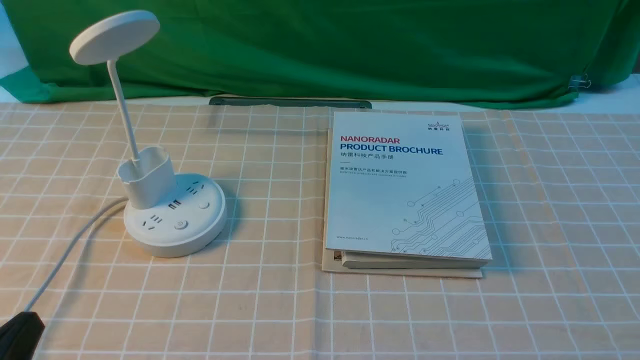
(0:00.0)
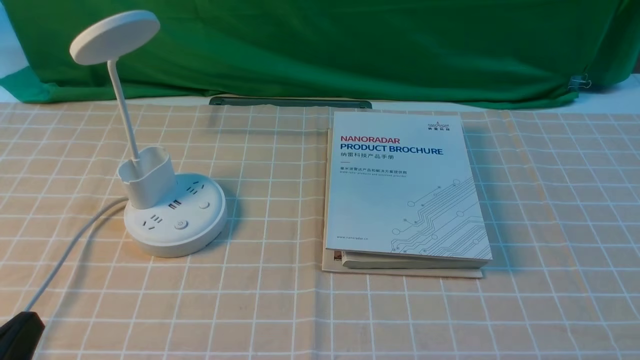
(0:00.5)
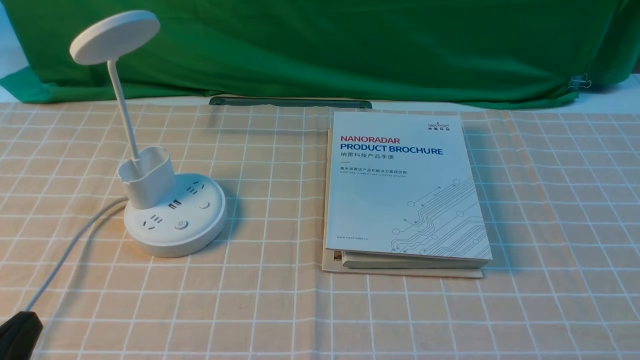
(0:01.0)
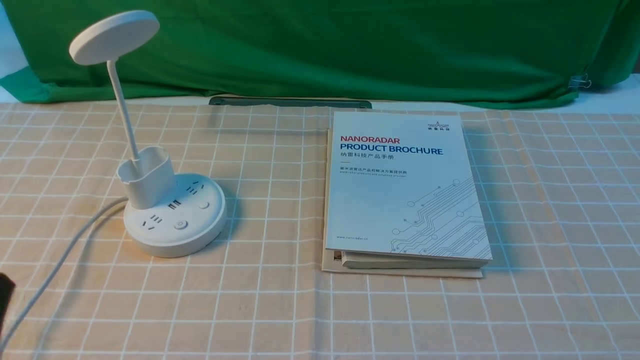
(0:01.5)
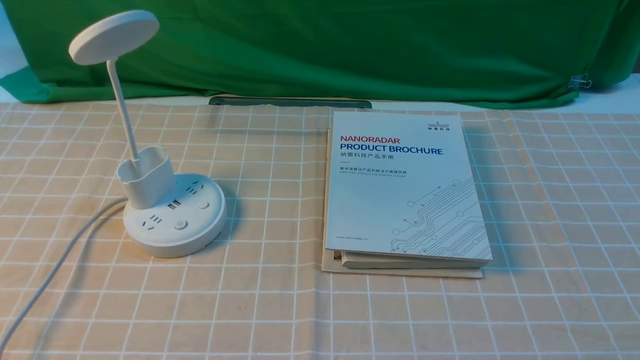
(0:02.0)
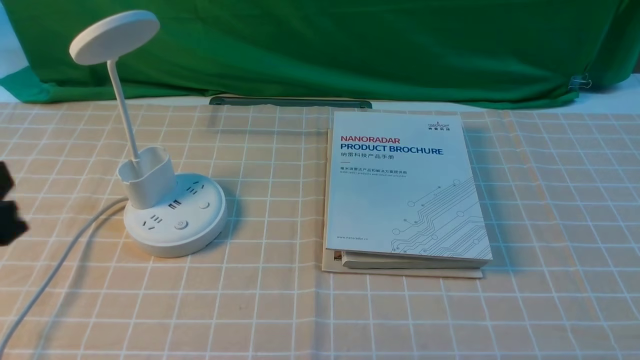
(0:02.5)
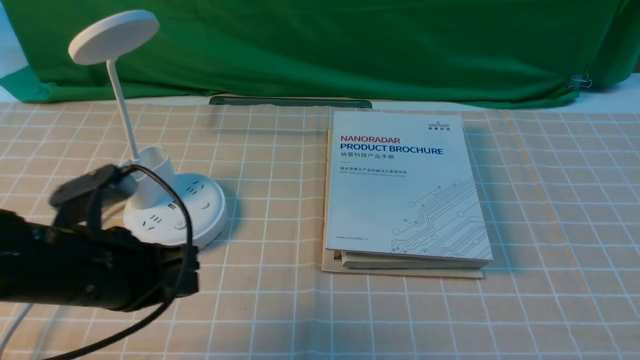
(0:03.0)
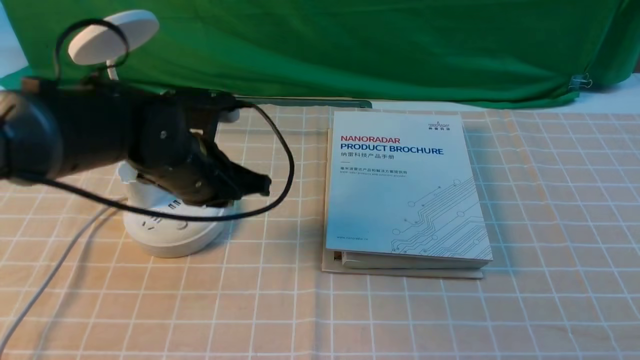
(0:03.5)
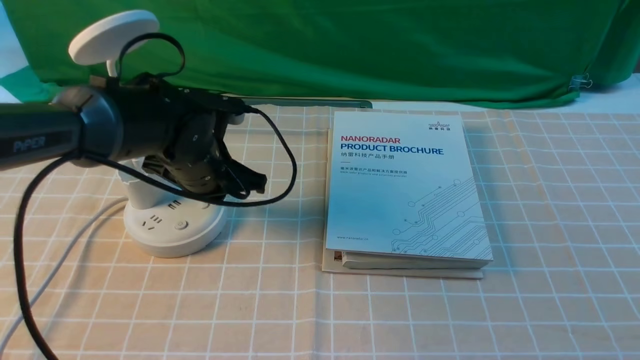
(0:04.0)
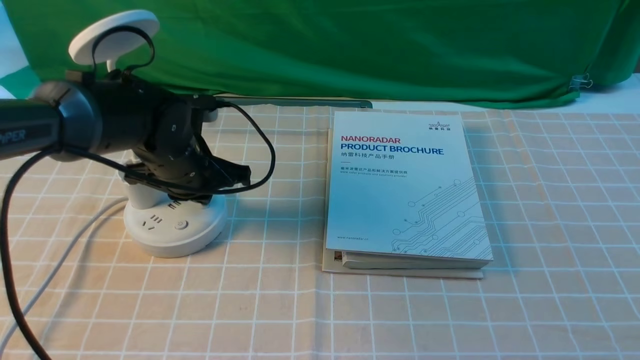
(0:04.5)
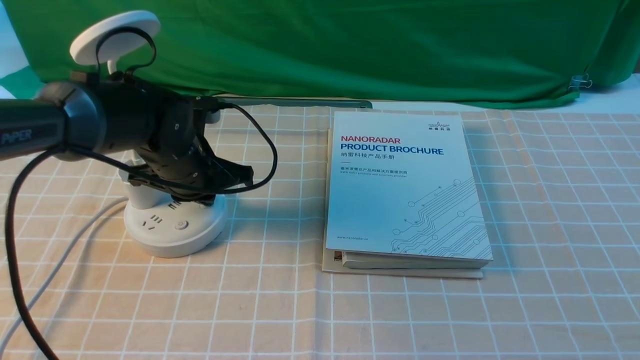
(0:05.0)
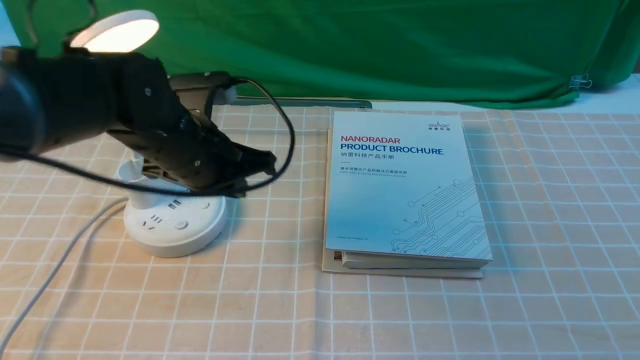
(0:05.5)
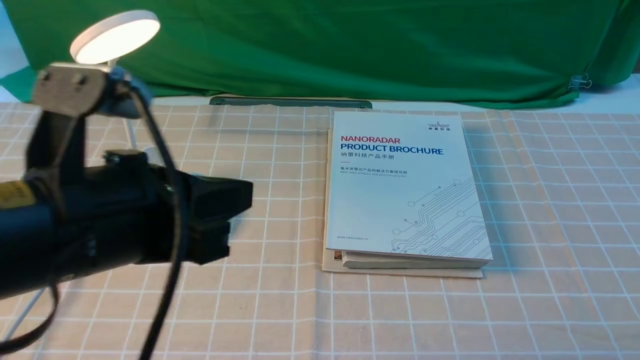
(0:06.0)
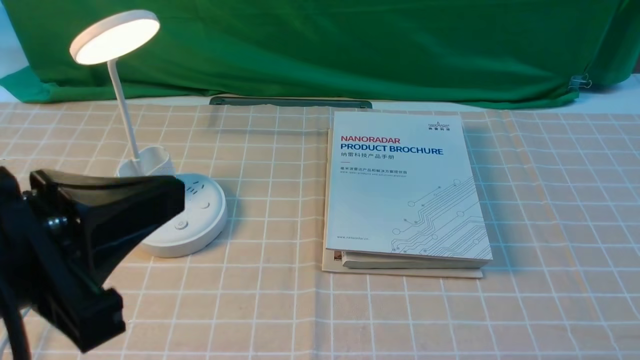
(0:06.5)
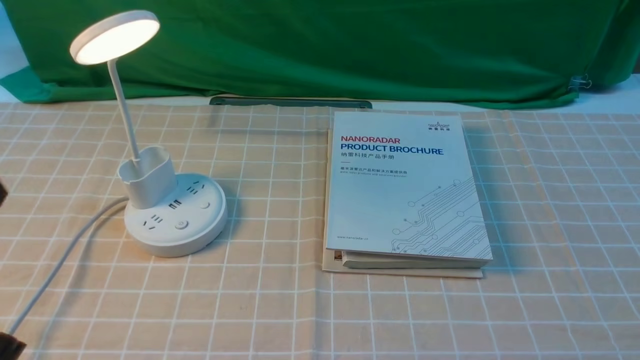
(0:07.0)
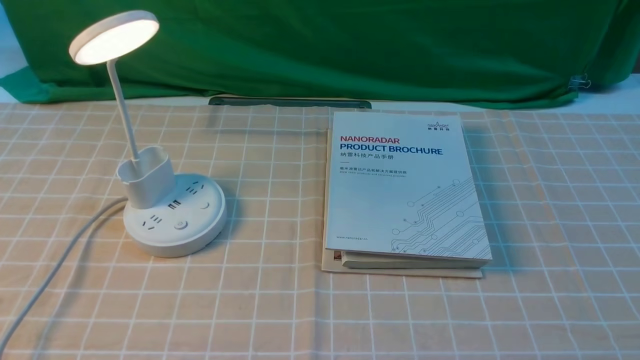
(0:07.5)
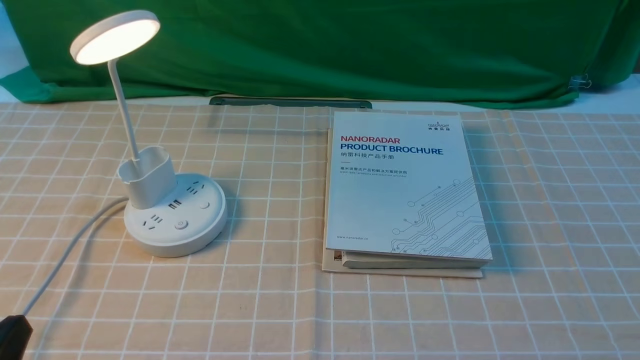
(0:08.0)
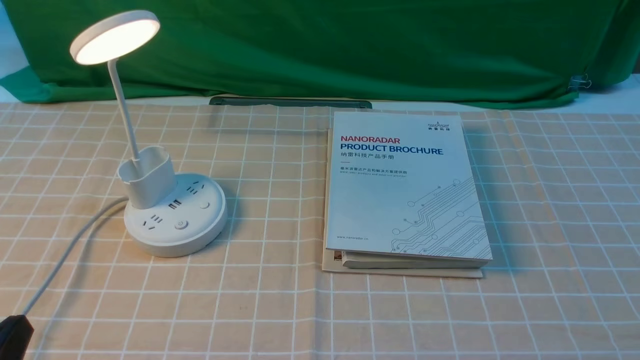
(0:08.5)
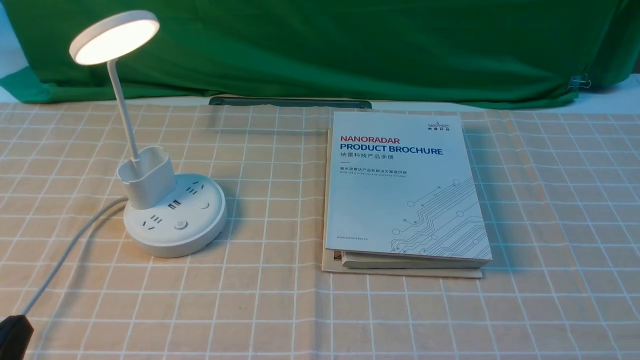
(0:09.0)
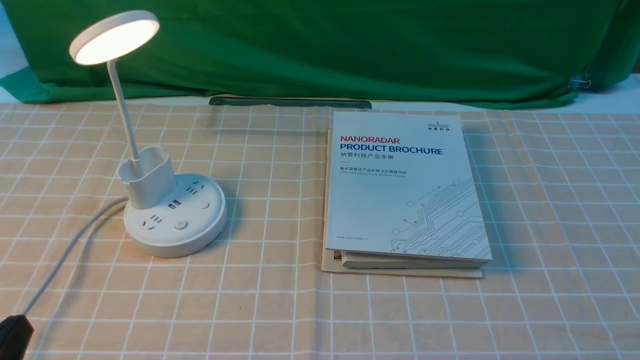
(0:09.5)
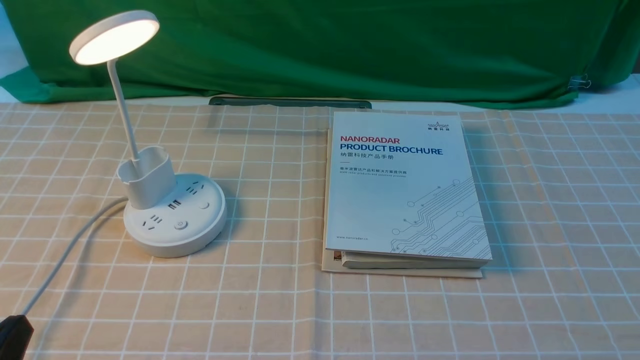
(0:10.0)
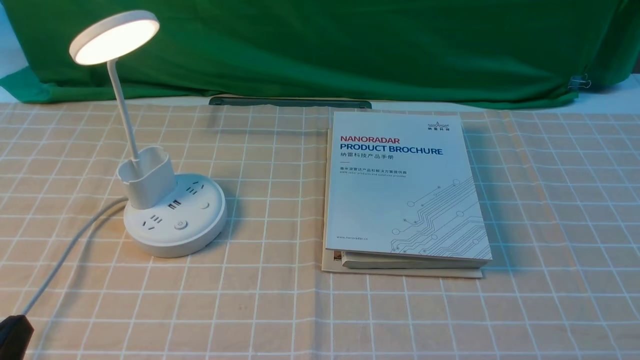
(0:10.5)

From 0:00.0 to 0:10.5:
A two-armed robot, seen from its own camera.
Step, from 0:00.0 to 0:05.5: use the left arm to press the button switch on the lamp holder.
From 0:00.0 to 0:02.0: The left gripper moves upward, about 15 cm.
From 0:02.0 to 0:04.0: The left gripper is displaced forward by some 35 cm.
From 0:04.0 to 0:06.5: The left gripper is displaced backward and upward by roughly 30 cm.
From 0:06.5 to 0:08.5: The left gripper moves downward and to the left, about 20 cm.
From 0:08.5 to 0:10.5: The two grippers keep their place.
